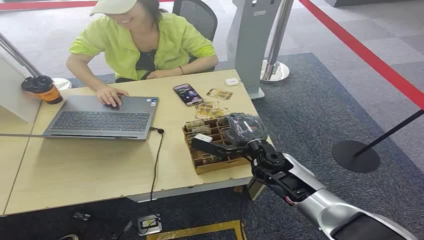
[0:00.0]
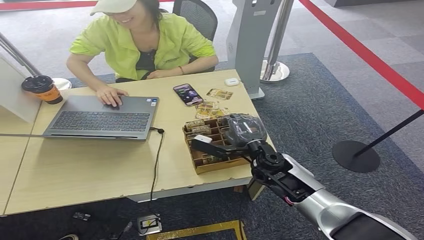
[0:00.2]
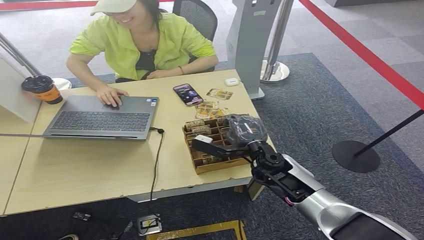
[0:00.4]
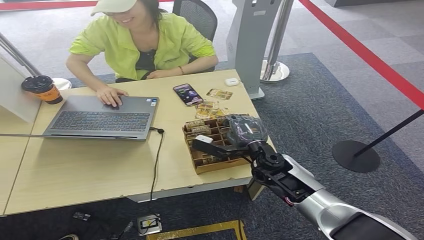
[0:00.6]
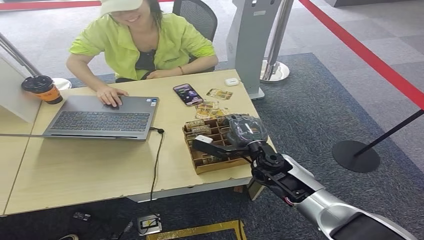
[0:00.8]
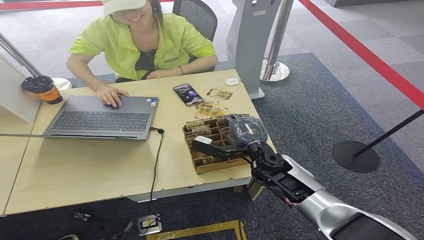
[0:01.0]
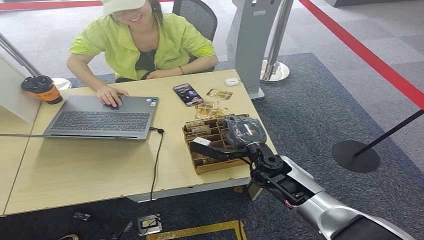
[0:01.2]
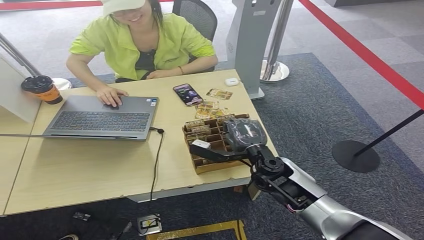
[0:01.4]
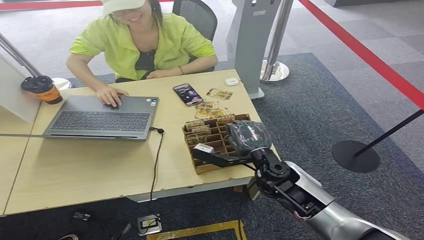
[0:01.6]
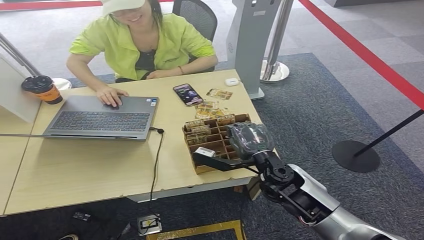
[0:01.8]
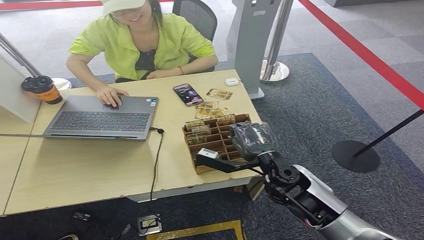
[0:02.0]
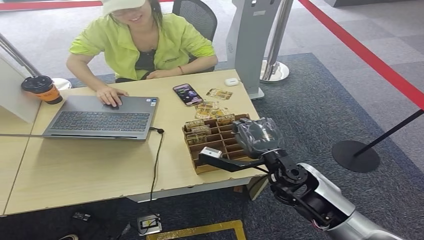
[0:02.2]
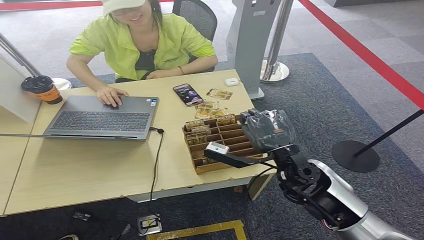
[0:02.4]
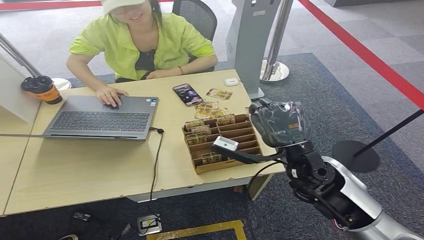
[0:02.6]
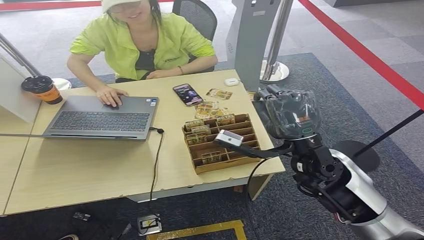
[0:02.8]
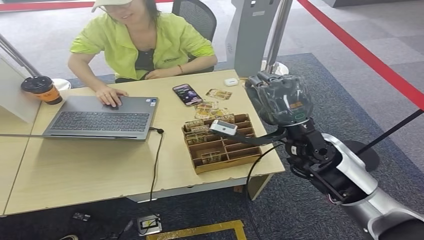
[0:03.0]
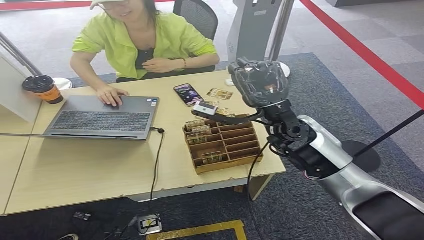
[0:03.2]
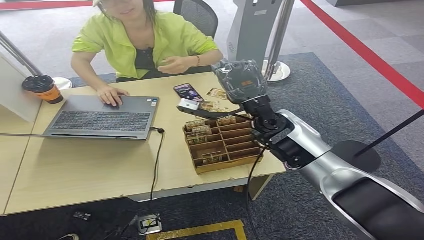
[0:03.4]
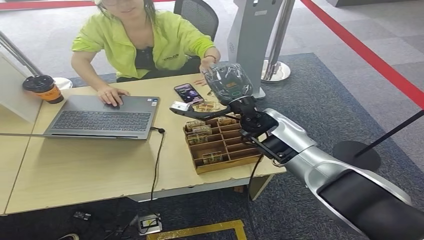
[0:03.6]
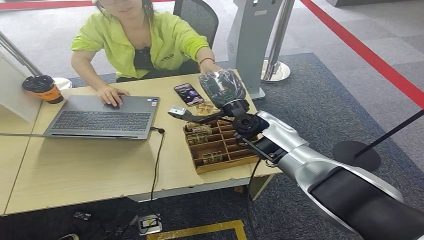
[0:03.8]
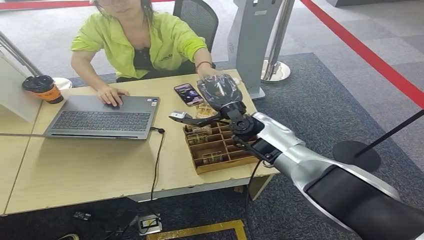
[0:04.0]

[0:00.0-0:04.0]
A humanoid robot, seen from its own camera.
Step, 0:00.0 to 0:02.2: Pick up the room card from the card holder.
Step, 0:02.4 to 0:04.0: Hand the room card to the target.
0:01.4 to 0:02.6: The right hand is displaced upward by roughly 10 cm.
0:02.6 to 0:04.0: The right hand goes about 15 cm forward and to the left.
